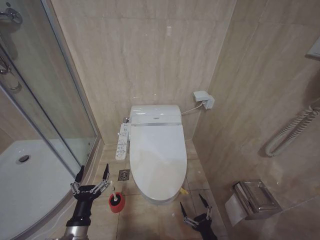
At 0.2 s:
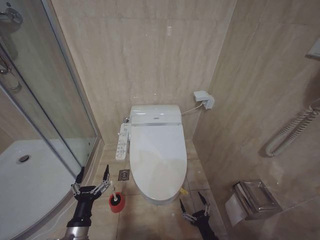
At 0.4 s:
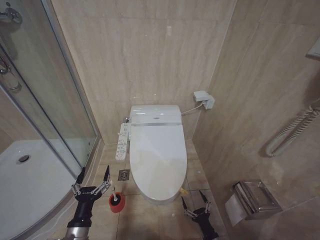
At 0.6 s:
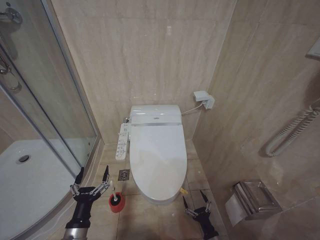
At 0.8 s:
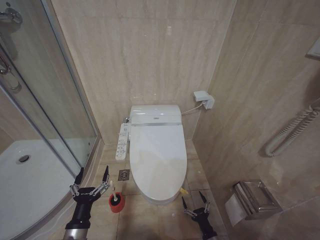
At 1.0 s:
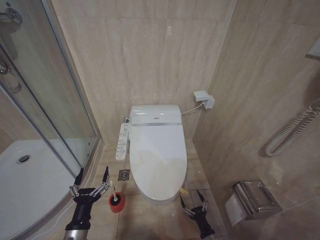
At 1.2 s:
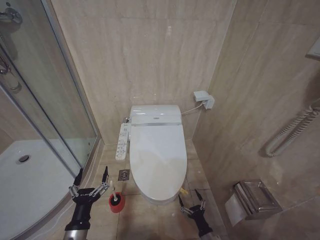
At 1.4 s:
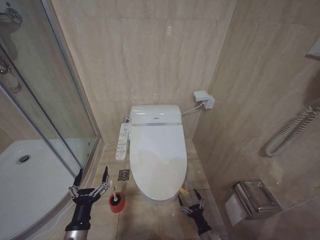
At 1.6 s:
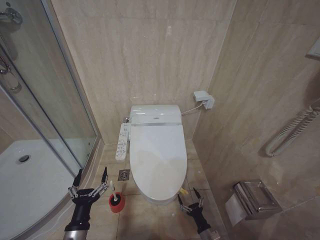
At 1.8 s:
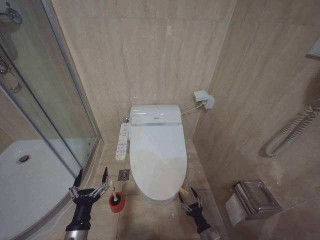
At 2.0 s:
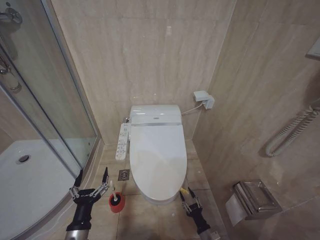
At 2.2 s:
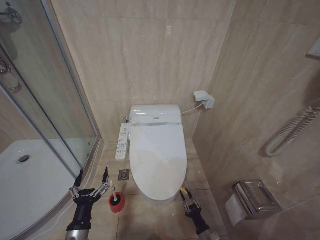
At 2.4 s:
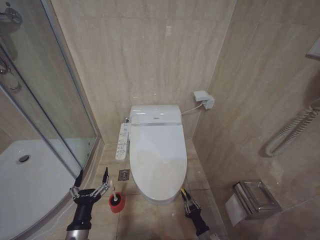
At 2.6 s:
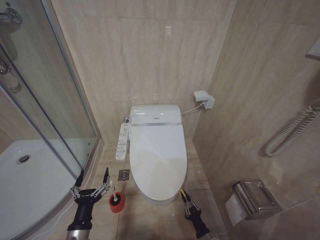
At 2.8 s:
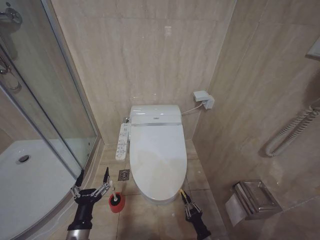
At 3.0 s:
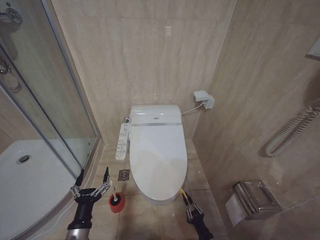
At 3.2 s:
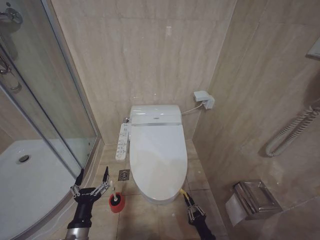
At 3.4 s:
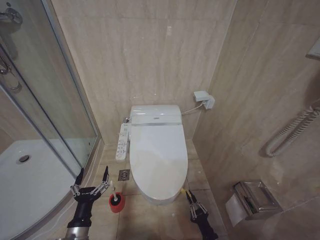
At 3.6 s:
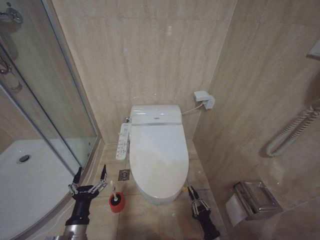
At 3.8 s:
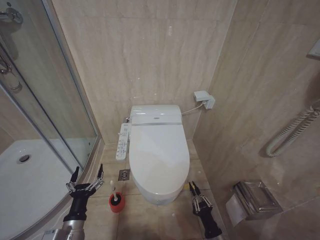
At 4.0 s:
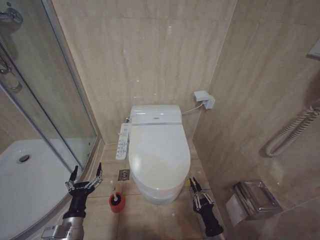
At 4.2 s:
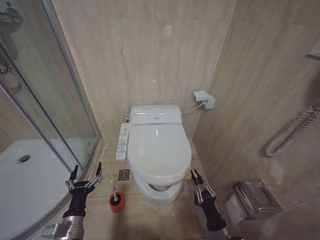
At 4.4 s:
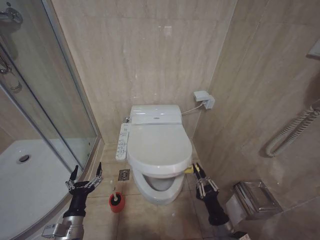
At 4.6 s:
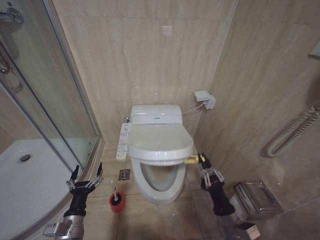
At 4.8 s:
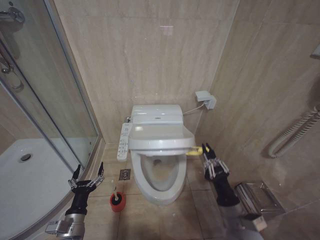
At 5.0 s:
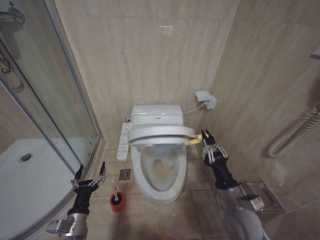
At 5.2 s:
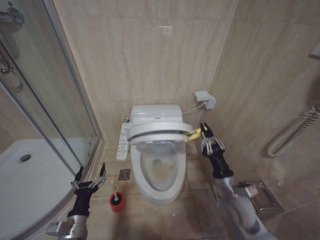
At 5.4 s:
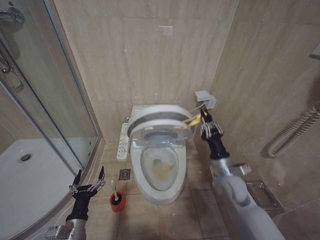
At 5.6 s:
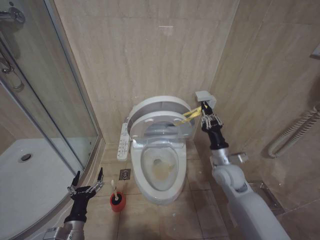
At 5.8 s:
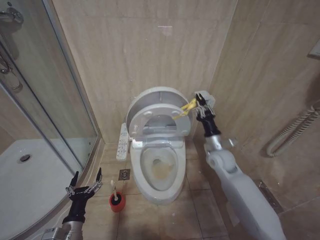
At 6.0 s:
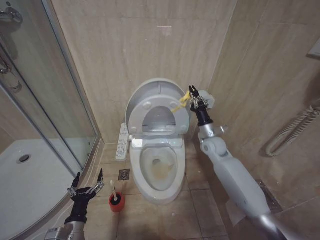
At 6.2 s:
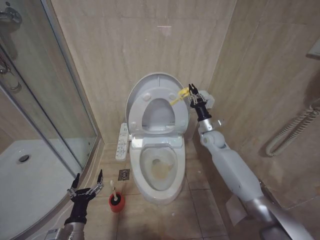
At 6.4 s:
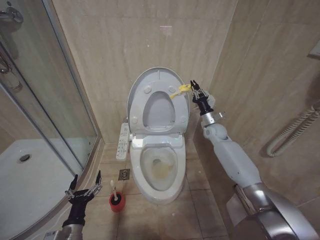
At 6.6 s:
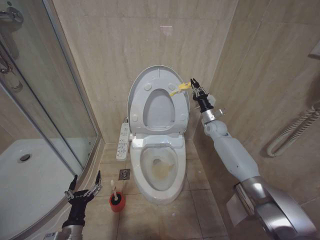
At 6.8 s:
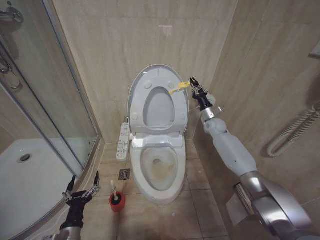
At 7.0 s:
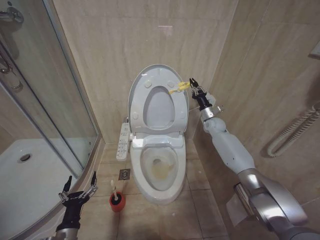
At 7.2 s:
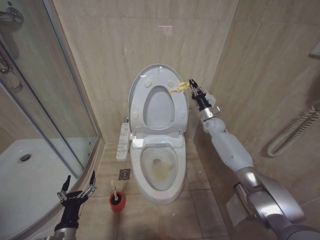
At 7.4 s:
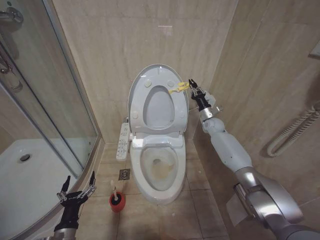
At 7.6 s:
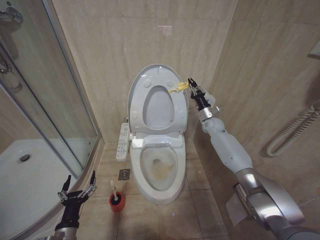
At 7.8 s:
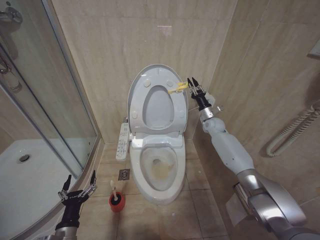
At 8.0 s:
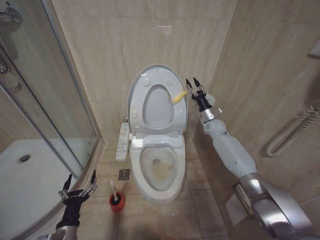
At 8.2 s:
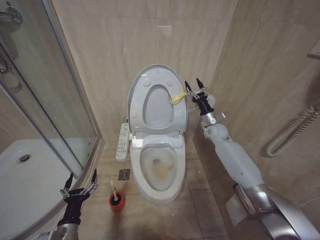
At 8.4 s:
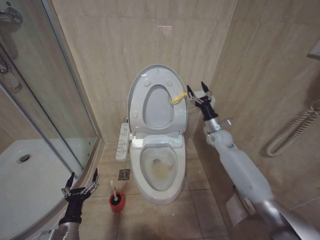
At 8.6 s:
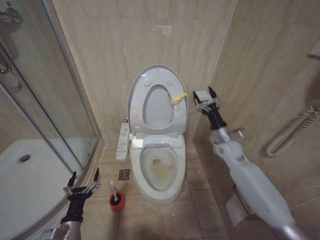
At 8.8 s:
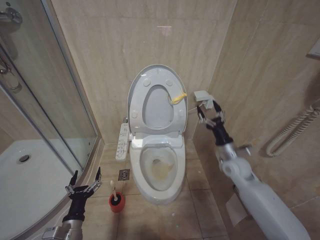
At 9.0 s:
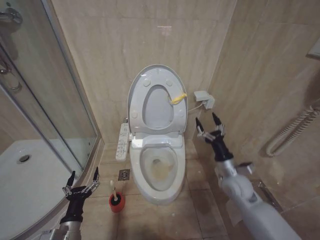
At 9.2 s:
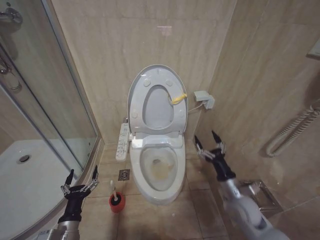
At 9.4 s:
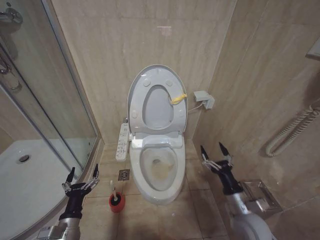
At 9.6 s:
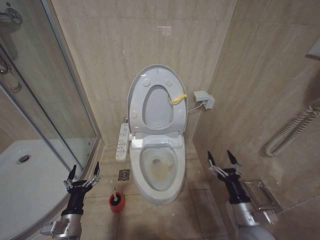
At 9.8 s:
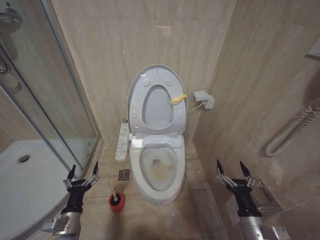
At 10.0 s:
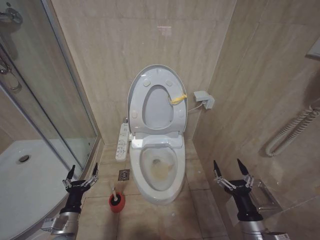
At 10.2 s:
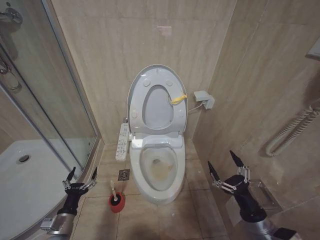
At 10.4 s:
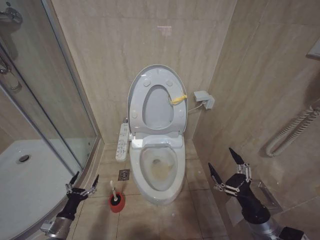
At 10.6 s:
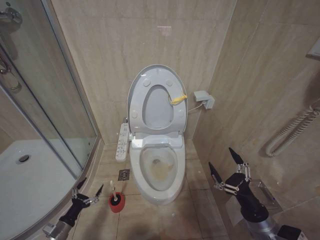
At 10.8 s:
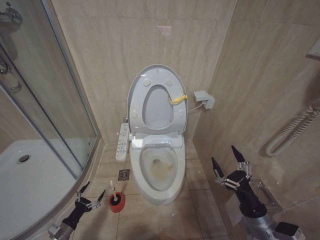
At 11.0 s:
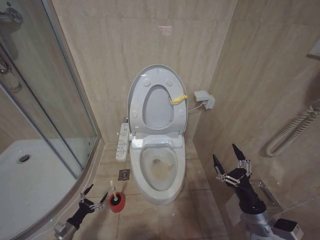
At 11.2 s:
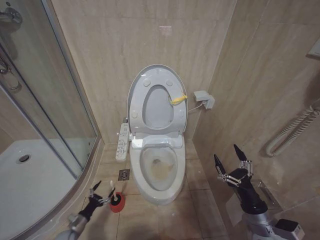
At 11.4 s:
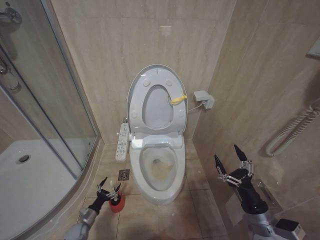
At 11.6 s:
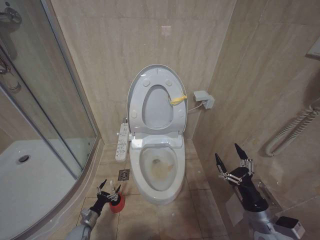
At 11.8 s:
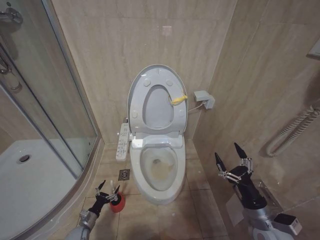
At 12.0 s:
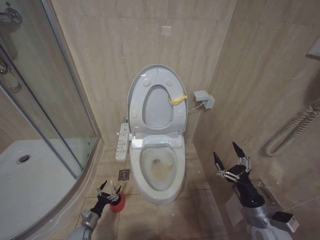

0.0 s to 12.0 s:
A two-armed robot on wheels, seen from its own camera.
Task of the whole recording: Open the toilet lid, clean the toilet bowl with a toilet brush, close the toilet lid, and flush.
0.0 to 1.6 s: The right gripper travels downward and forward by about 15 cm.
3.0 to 4.4 s: The left gripper moves approximately 5 cm. The right gripper goes about 20 cm upward.
4.4 to 6.0 s: The right gripper goes approximately 35 cm forward and upward.
6.0 to 7.6 s: The right gripper heads forward, covering roughly 15 cm.
7.6 to 9.0 s: The right gripper moves backward, some 25 cm, and opens.
9.0 to 10.4 s: The right gripper moves backward, approximately 20 cm, while the left gripper goes about 10 cm to the left and downward.
10.4 to 12.0 s: The left gripper travels downward and forward by approximately 20 cm.

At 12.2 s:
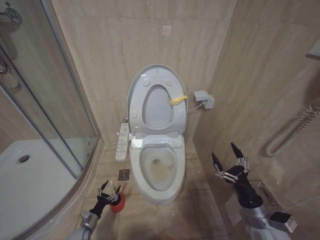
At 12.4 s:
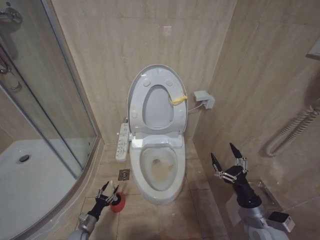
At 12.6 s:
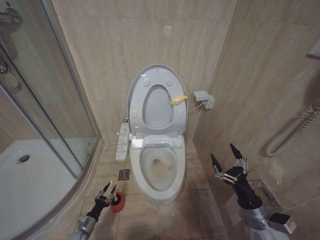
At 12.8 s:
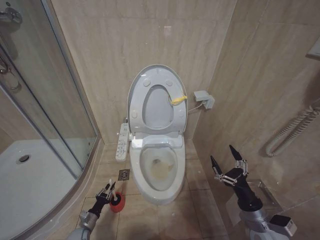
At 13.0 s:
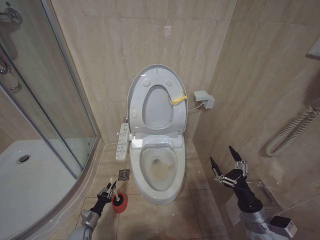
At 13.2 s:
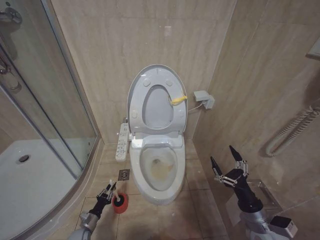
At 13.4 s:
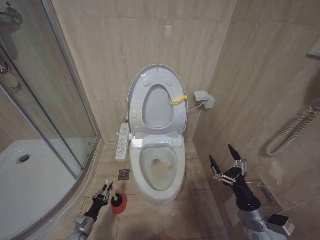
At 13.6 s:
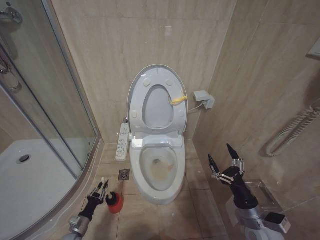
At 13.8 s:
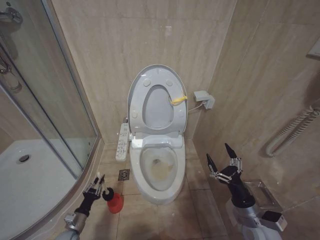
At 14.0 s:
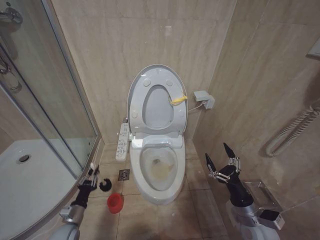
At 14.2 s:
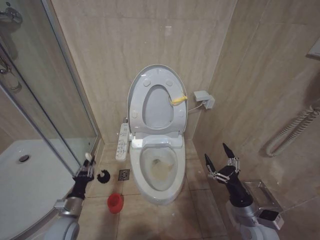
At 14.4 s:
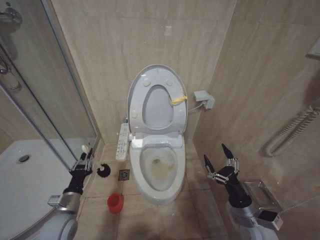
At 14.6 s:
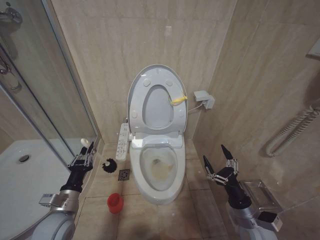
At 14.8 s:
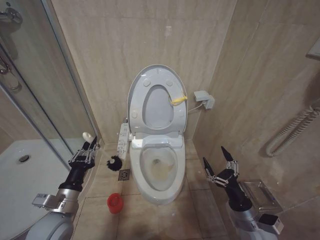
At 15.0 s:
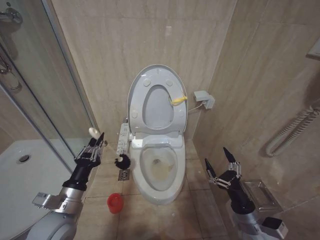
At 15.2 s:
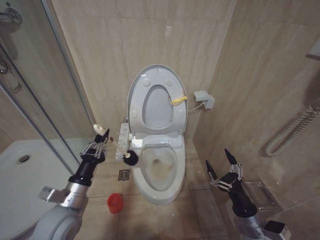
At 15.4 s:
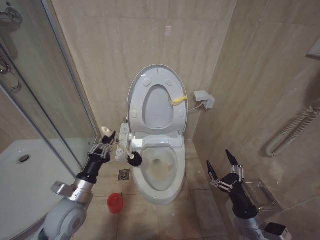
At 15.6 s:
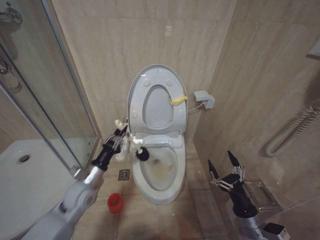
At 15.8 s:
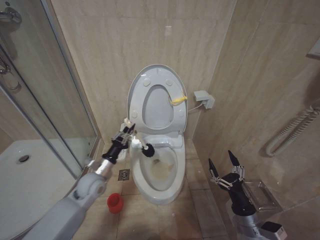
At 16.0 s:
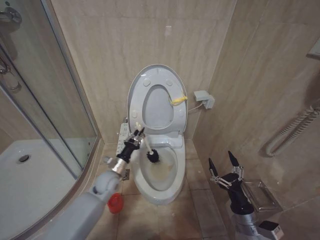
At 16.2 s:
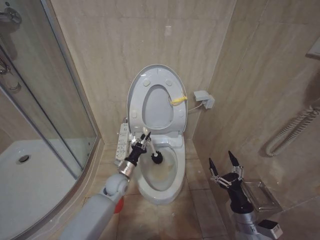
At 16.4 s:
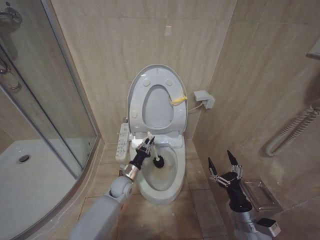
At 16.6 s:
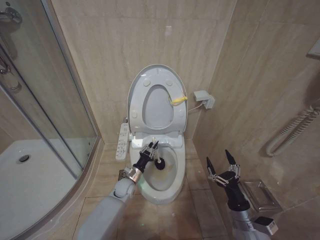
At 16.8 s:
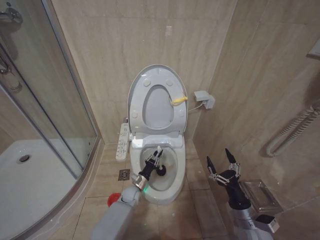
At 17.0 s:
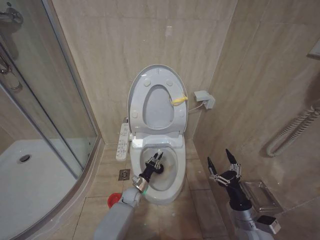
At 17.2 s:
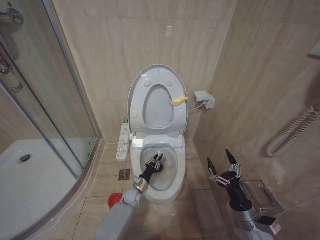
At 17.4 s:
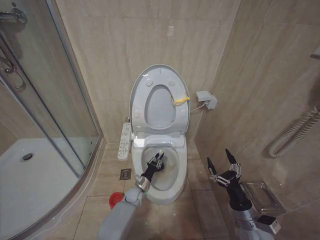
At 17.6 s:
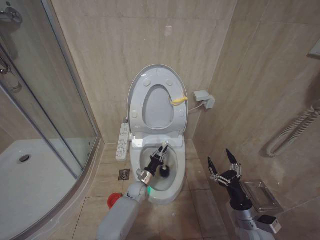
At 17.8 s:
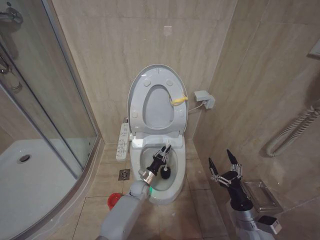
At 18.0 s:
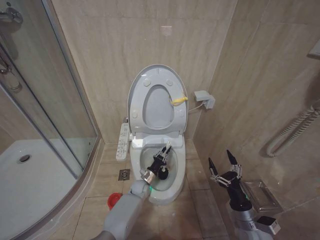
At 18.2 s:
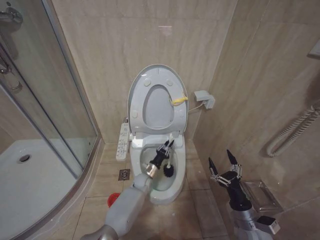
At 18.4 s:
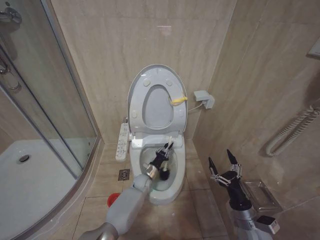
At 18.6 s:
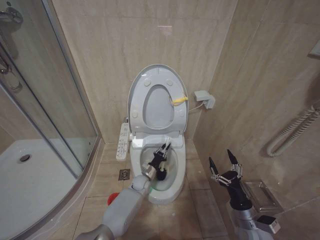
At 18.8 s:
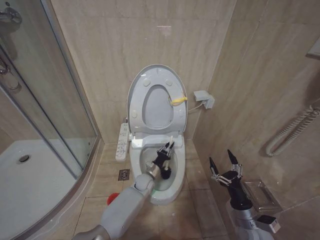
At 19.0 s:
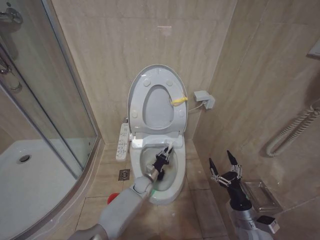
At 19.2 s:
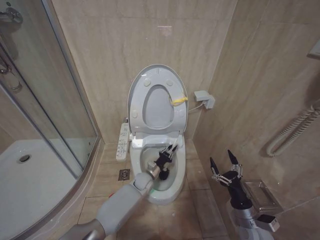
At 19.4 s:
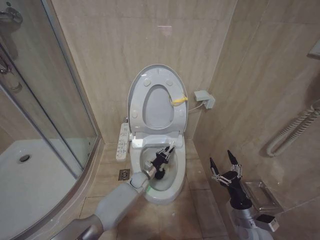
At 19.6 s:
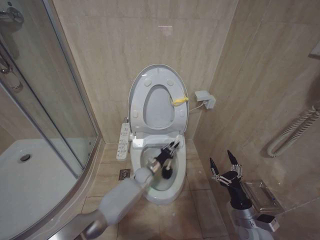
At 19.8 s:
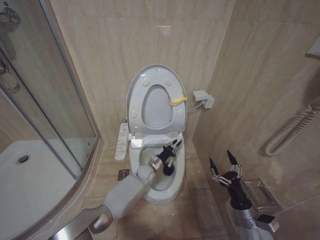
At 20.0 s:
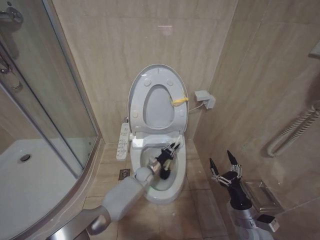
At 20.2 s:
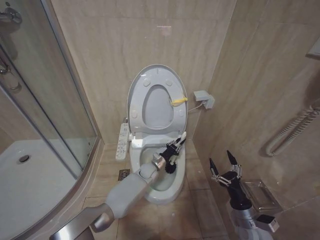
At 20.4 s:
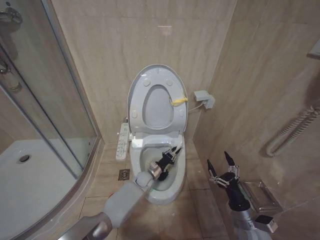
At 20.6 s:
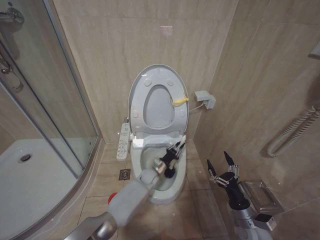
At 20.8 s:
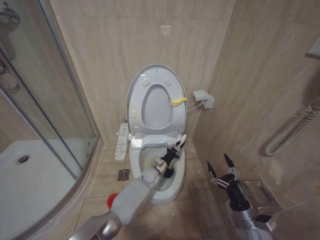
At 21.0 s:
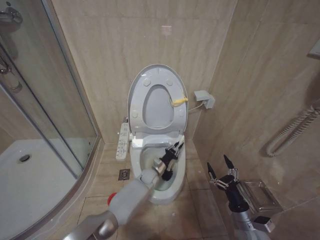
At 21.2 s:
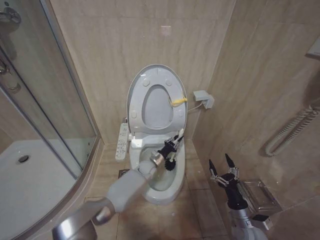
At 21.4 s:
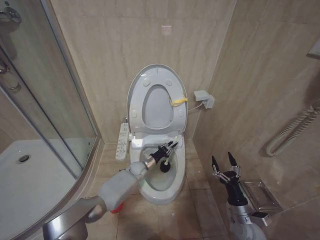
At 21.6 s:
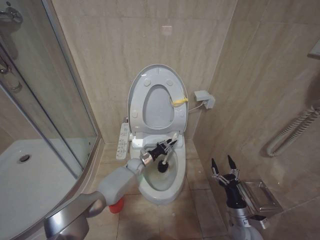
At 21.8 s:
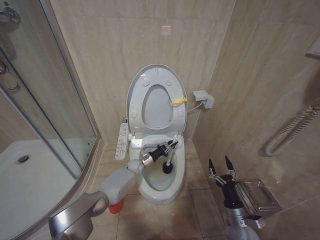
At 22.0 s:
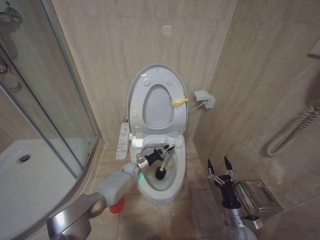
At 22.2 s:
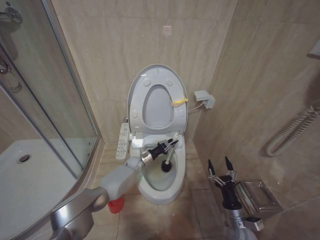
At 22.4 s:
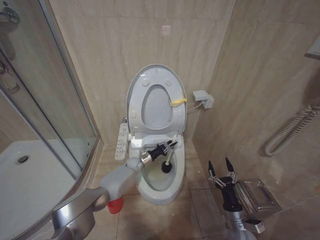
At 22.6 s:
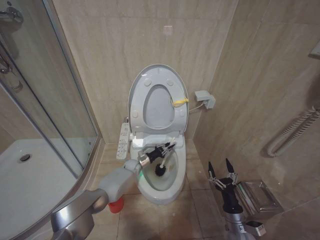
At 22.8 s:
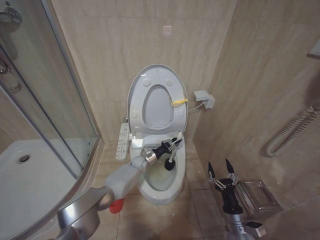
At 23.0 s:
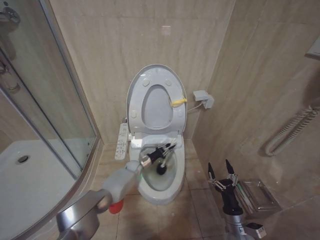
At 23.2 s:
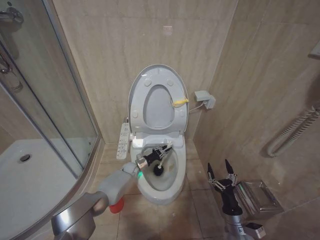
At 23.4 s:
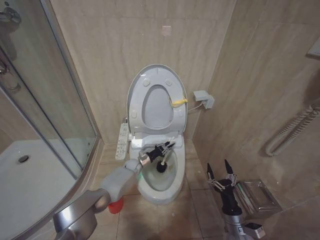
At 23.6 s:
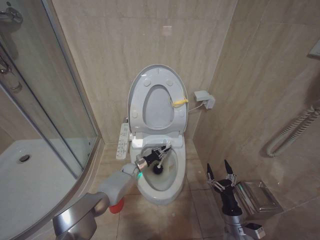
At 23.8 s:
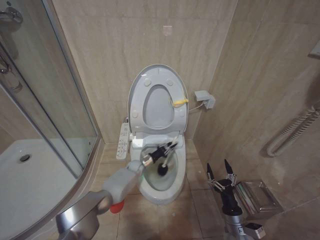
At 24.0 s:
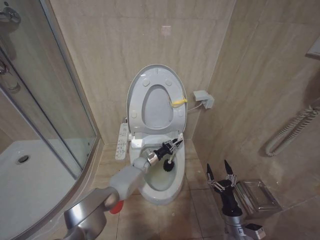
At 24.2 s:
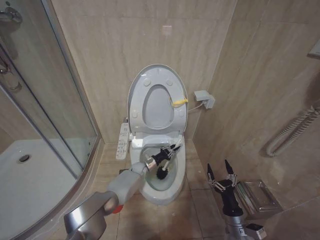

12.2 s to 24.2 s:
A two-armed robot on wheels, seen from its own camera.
Task of the whole recording: Open the toilet lid, clean the toilet bowl with a toilet brush, close the toilet lid, and flush.
12.2 to 13.8 s: The left gripper goes approximately 10 cm upward, and closes its fingers.
13.8 to 15.2 s: The left gripper heads upward, covering some 30 cm.
15.2 to 16.6 s: The left gripper is displaced forward, downward and to the right by approximately 30 cm.
16.6 to 18.2 s: The left gripper goes roughly 10 cm to the right and downward.
18.2 to 19.8 s: The left gripper heads upward, covering roughly 5 cm.
19.8 to 21.2 s: The grippers make only small movements.
21.2 to 22.6 s: The left gripper moves to the left and forward, some 10 cm.
22.6 to 24.2 s: The grippers move only a little.
